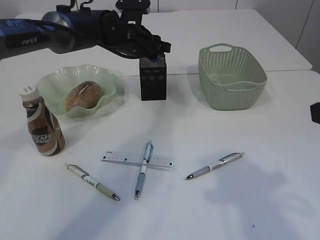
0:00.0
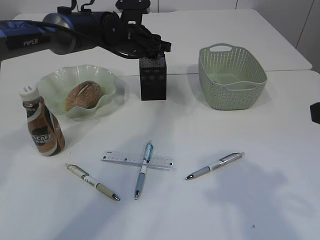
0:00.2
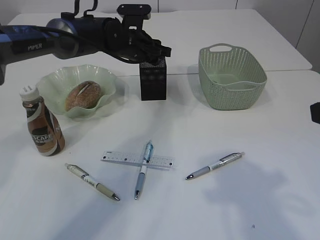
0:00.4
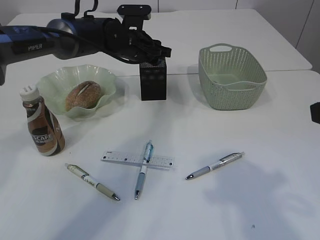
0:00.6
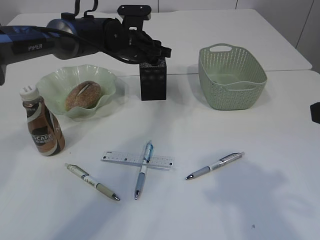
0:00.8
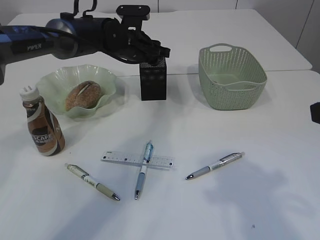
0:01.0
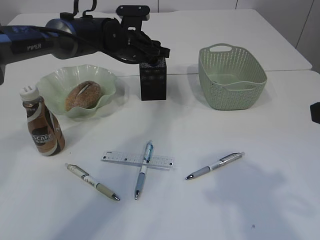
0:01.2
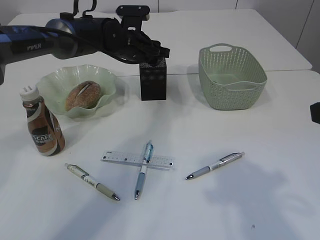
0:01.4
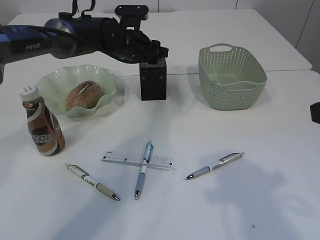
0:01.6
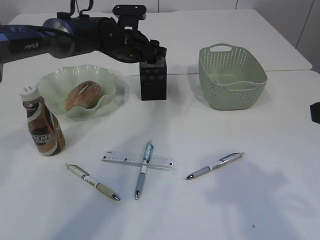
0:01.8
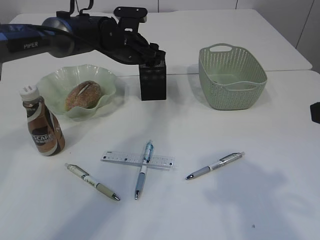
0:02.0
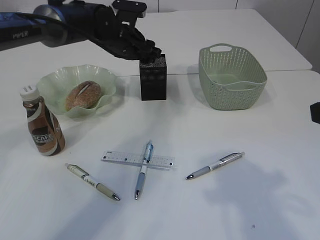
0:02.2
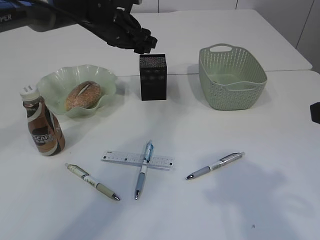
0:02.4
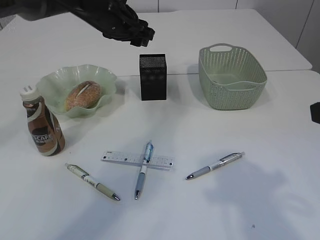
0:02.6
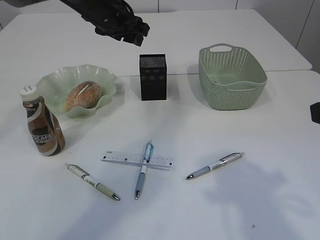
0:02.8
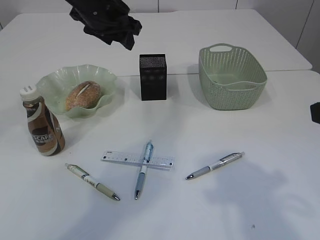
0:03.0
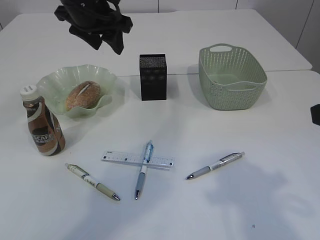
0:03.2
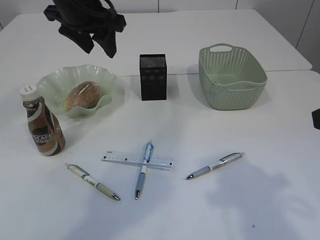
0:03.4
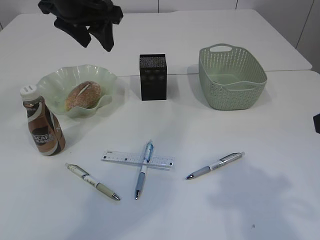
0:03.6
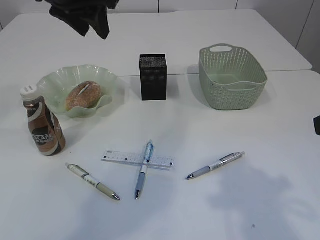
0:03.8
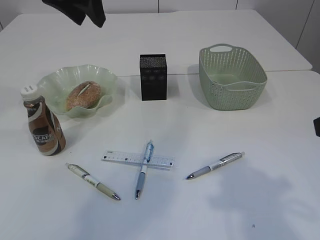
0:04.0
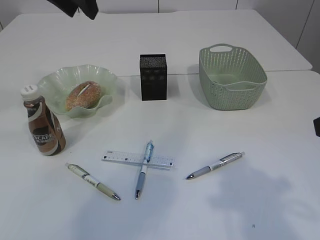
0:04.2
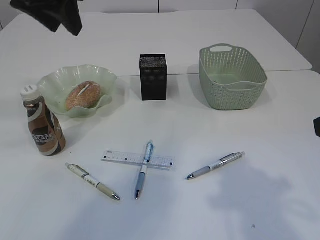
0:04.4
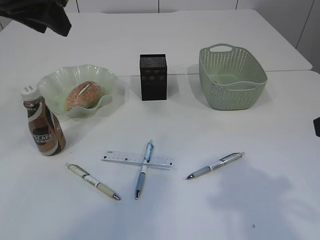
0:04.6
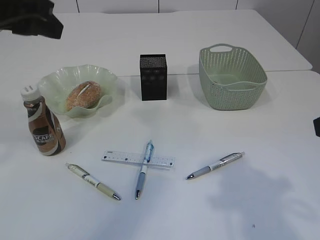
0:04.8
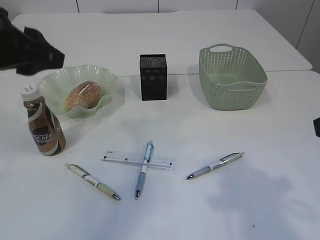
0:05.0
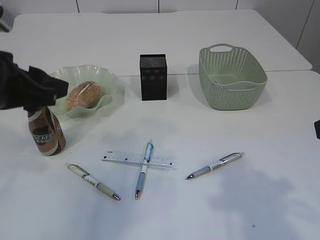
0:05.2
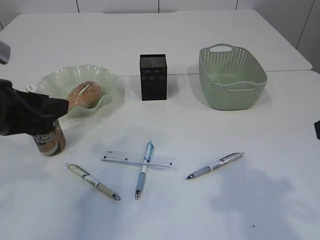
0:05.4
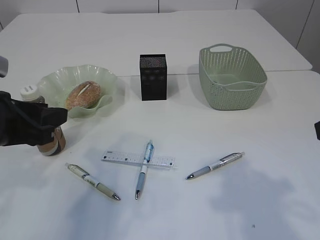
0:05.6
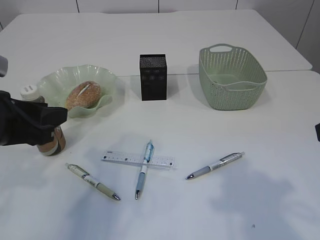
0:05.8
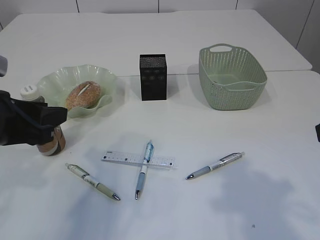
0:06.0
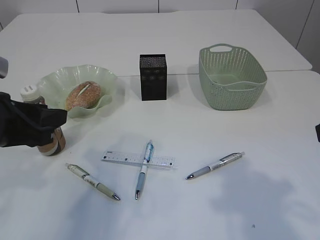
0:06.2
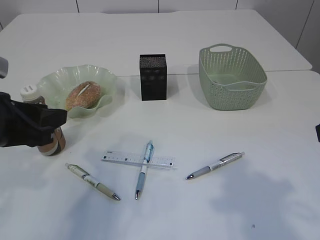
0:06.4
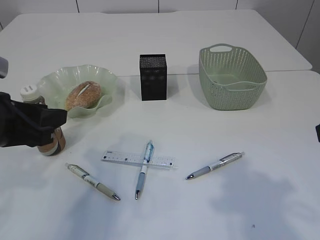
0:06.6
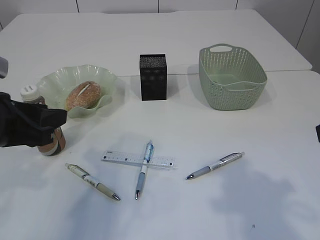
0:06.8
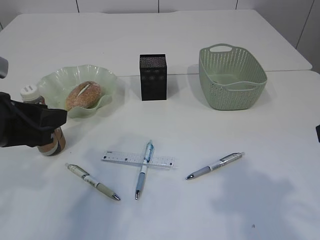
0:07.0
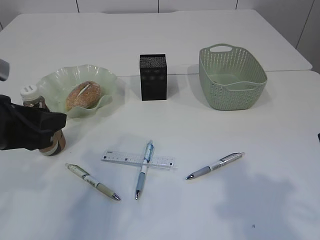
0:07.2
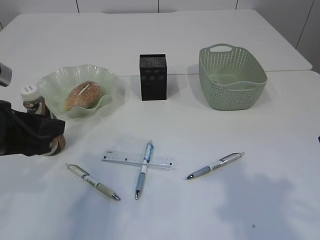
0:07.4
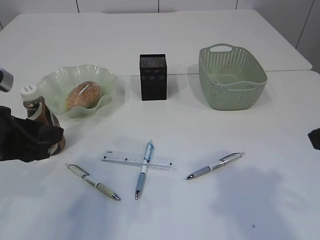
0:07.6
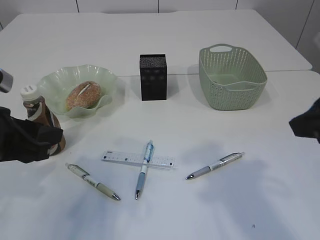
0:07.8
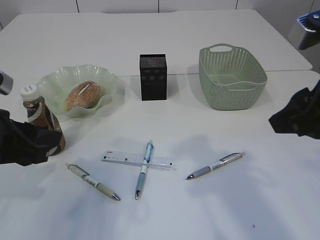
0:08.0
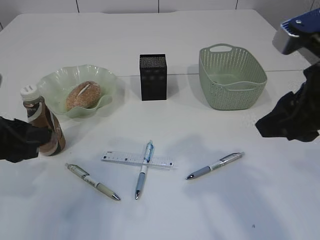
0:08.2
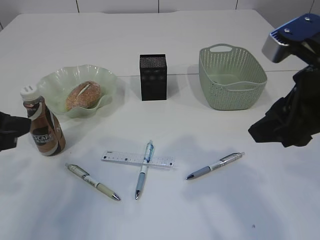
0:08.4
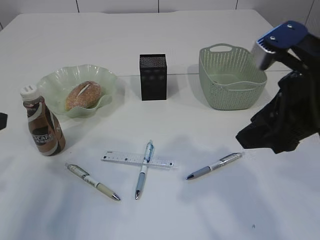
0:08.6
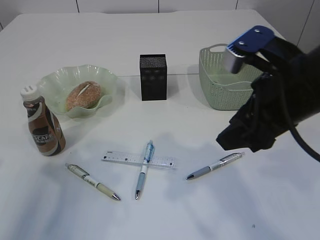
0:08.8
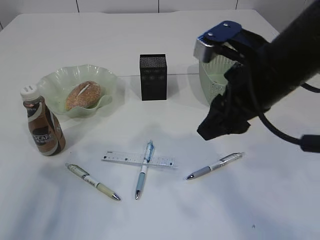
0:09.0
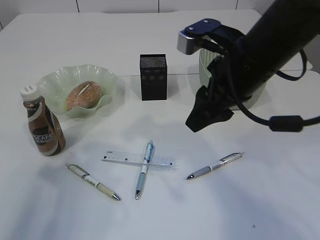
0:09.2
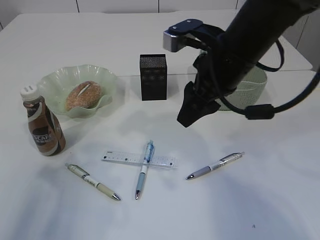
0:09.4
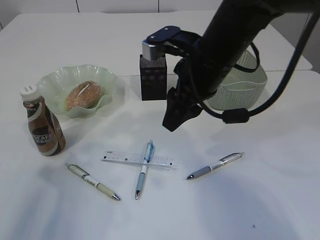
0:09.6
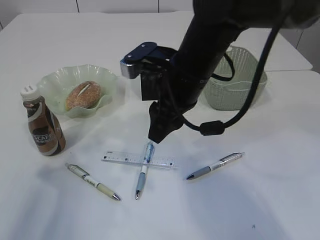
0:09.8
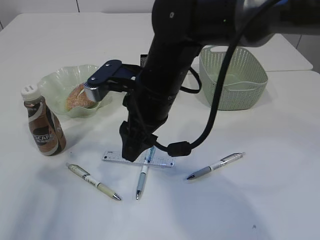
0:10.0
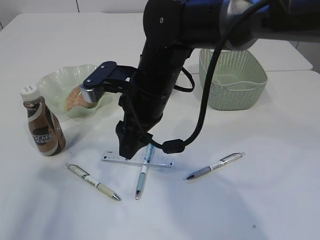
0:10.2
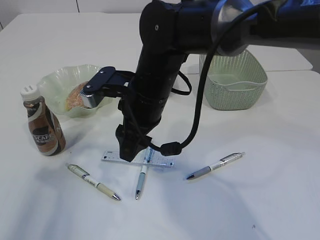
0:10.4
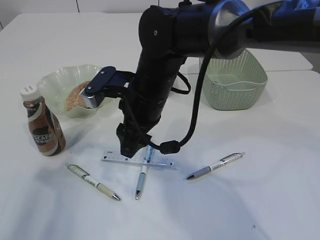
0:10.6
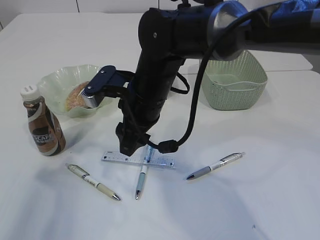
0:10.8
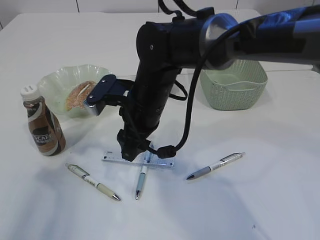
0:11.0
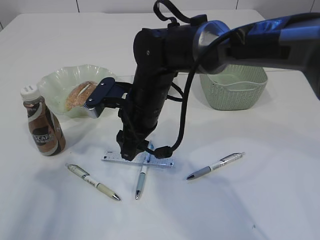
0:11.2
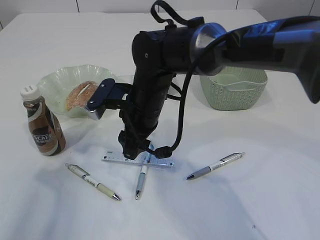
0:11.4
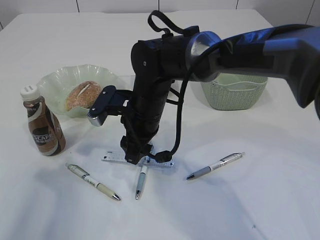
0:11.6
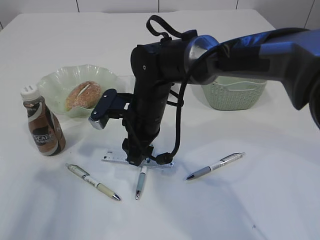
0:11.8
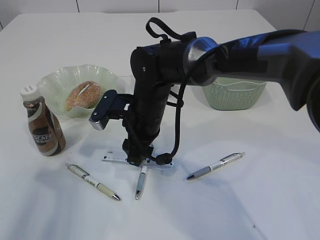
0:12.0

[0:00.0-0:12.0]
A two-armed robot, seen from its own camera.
Step, 0:00.0 to 0:02.6: Place the blue pencil sharpener into the pen holder.
0:00.0 to 0:01.6: The grippers stay close to where they were, moving slightly.
0:01.6 to 0:03.0: The left gripper moves upward and backward, approximately 10 cm.
0:03.0 to 0:04.4: The left gripper travels backward, upward and to the left by roughly 15 cm.
0:04.4 to 0:06.0: The left gripper heads downward and backward, covering about 20 cm.
0:06.0 to 0:07.6: There are only small adjustments of the grippers.
0:07.6 to 0:09.0: The left gripper goes roughly 5 cm to the left. The right gripper shifts roughly 15 cm forward and to the left.
0:09.0 to 0:10.4: The right gripper is displaced to the left, forward and downward by roughly 20 cm.
0:10.4 to 0:12.0: The right gripper travels downward by approximately 5 cm.

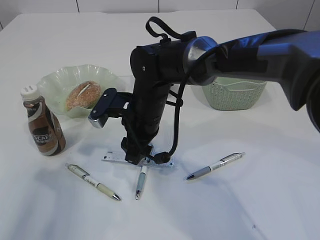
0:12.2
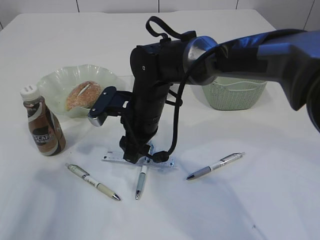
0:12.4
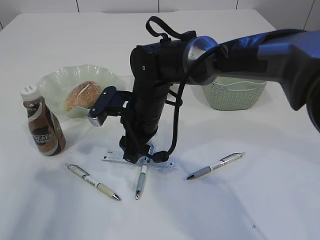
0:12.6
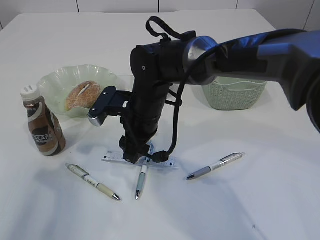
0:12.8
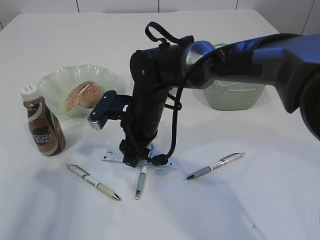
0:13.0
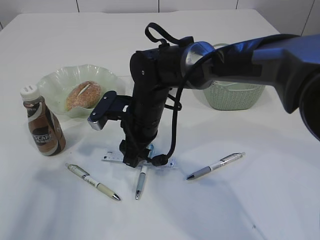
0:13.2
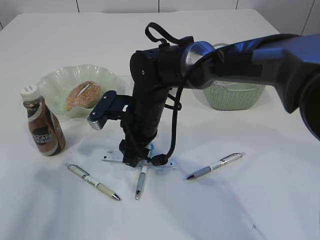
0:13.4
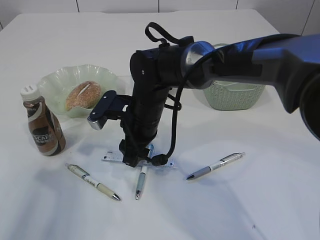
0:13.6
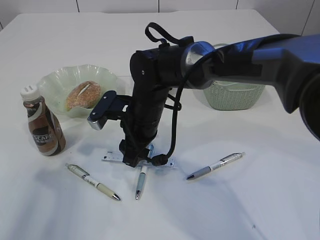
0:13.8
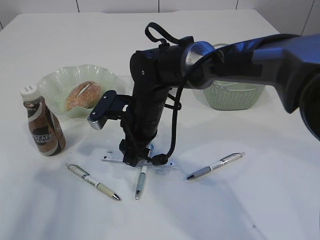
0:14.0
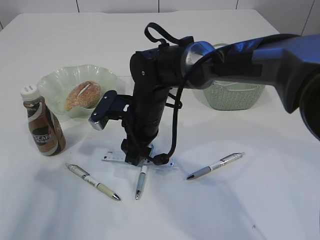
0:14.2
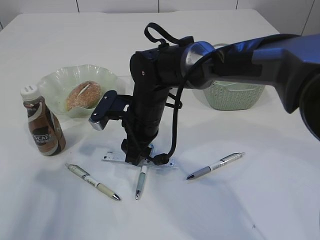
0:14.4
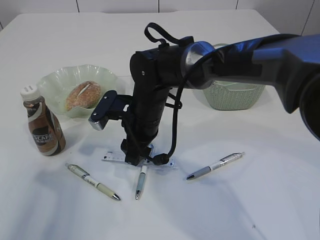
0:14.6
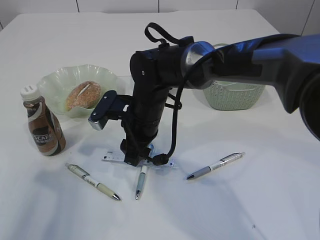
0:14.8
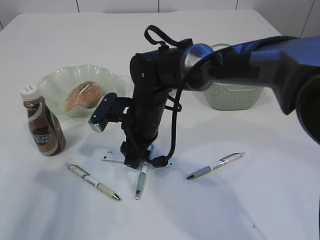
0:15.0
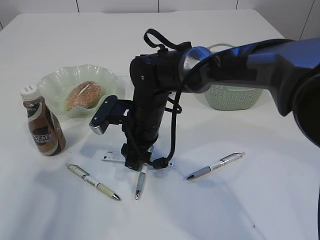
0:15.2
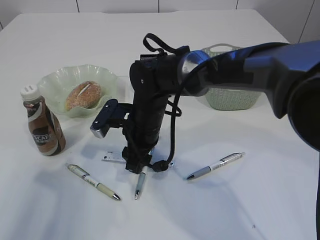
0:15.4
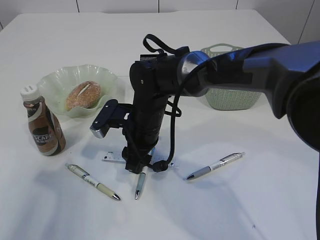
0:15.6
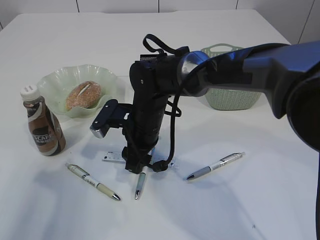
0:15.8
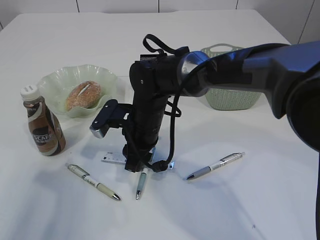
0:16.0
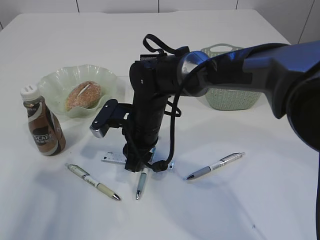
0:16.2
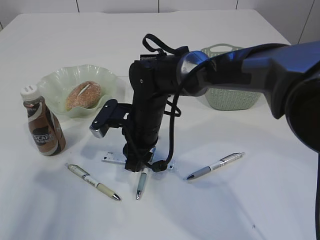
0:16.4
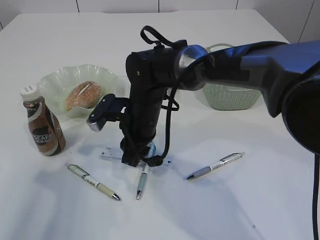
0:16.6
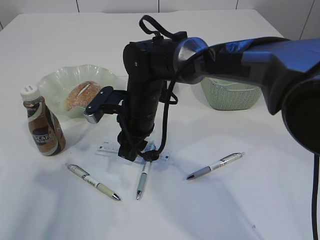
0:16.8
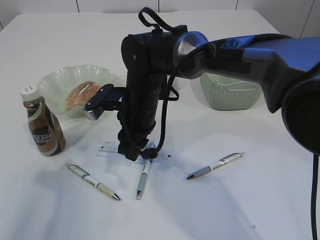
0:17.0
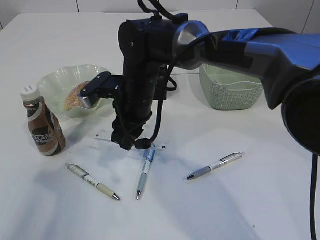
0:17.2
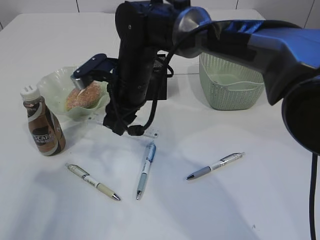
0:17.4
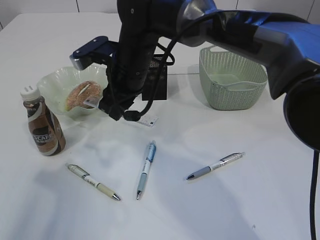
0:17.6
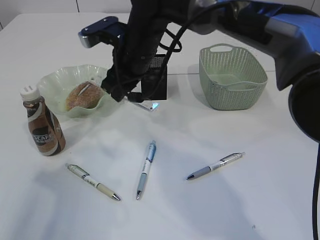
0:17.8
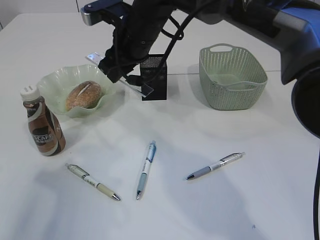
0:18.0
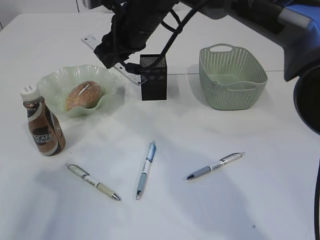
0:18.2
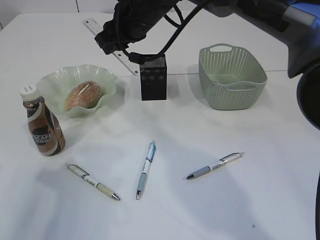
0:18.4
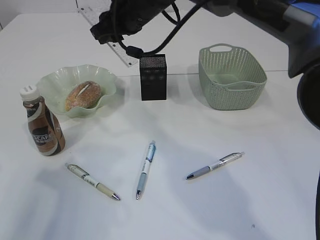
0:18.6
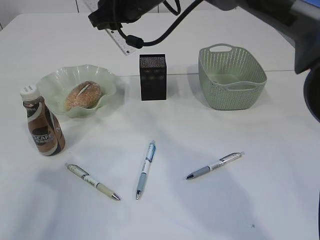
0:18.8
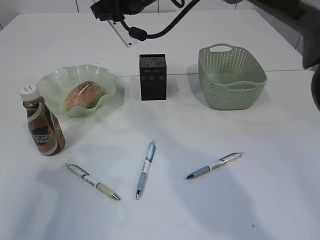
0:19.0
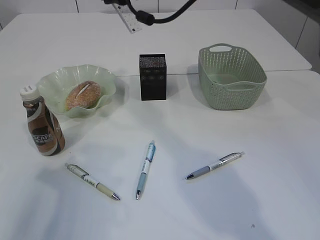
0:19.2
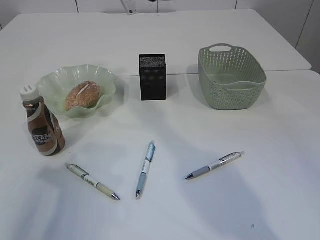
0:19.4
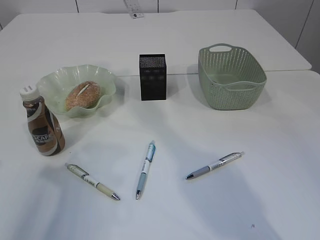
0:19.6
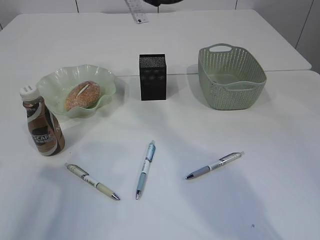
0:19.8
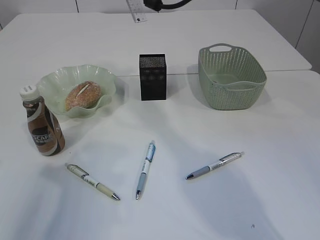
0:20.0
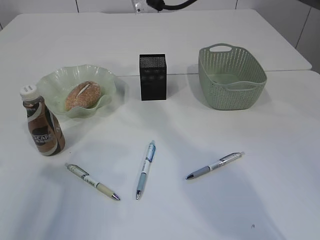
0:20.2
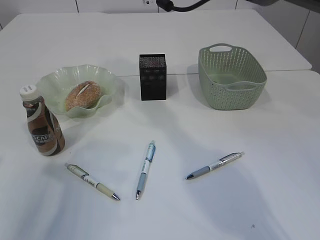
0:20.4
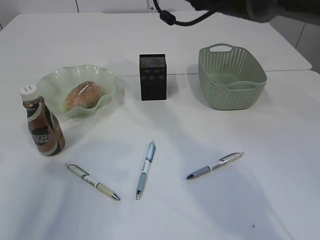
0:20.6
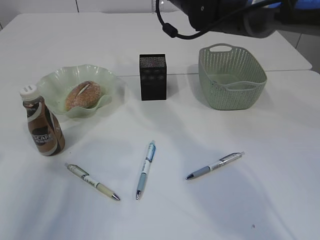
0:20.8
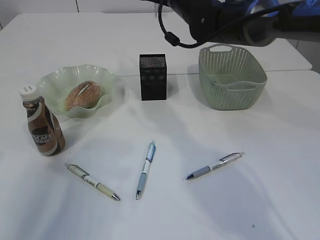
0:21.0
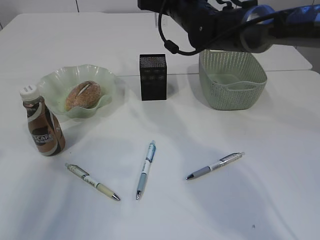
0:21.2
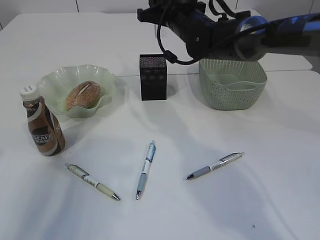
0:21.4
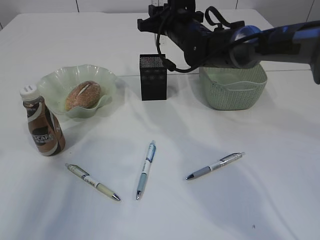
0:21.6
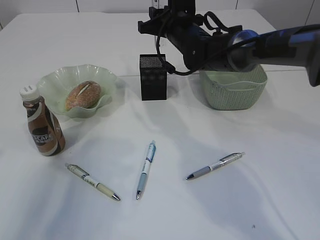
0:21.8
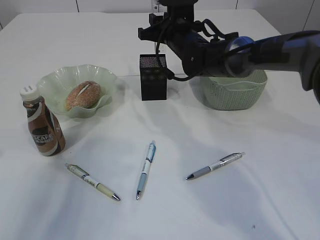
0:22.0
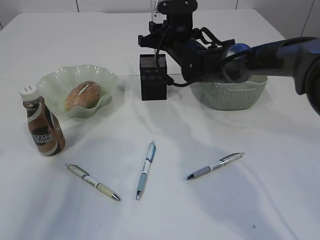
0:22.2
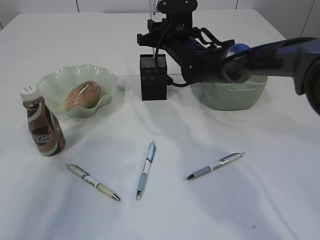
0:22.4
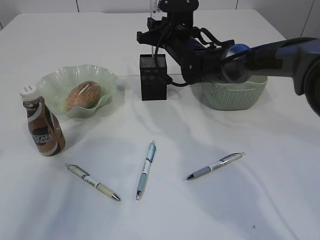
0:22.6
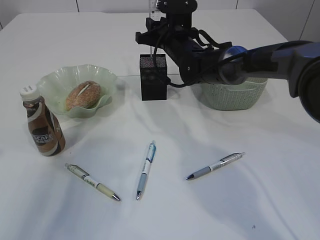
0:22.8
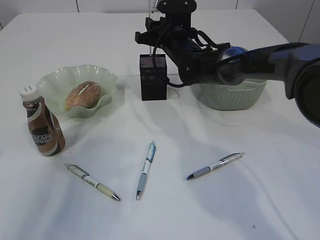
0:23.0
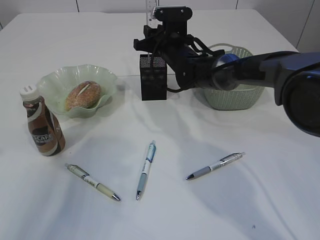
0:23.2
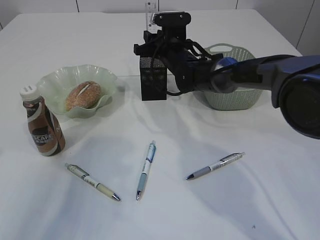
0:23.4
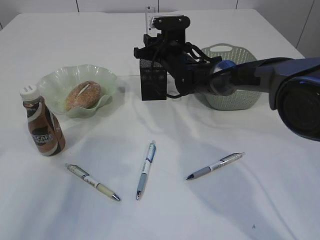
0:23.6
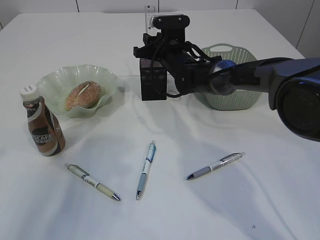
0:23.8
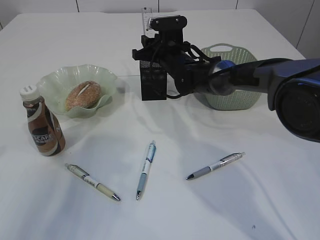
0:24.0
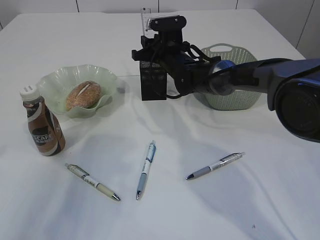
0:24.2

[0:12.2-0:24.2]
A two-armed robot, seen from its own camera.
Step, 0:12.2 to 0:17.4: pick up the ruler.
0:12.2 to 0:13.8: Neither gripper changes place.
0:13.8 to 0:15.2: The two grippers keep their place.
0:15.2 to 0:16.6: The two grippers keep their place.
0:16.6 to 0:18.2: The right gripper travels upward and forward by approximately 15 cm.
0:18.2 to 0:19.8: The right gripper moves upward, roughly 10 cm.
0:19.8 to 0:21.2: The right gripper goes some 10 cm downward.
0:21.2 to 0:22.6: The right gripper travels downward by some 10 cm.
0:22.6 to 0:24.2: The grippers move only a little.
